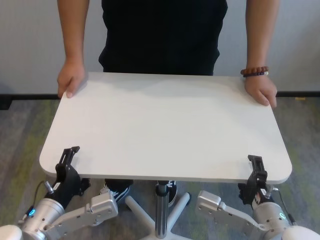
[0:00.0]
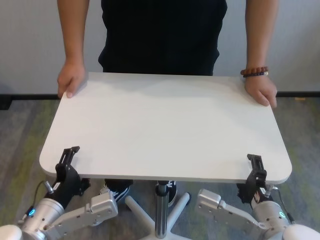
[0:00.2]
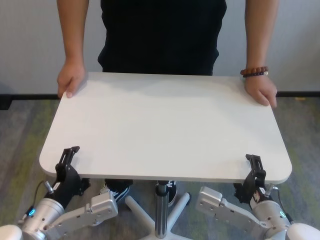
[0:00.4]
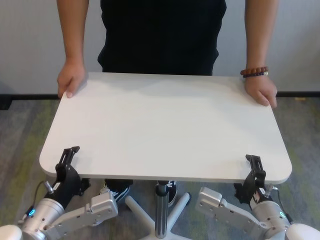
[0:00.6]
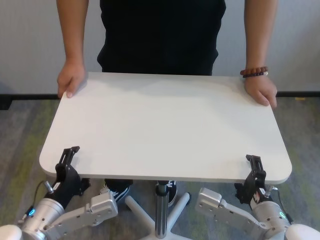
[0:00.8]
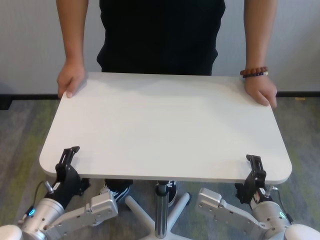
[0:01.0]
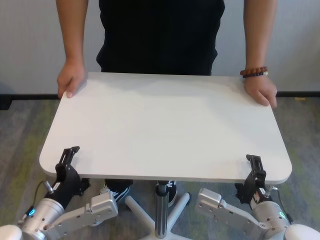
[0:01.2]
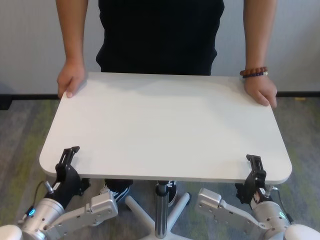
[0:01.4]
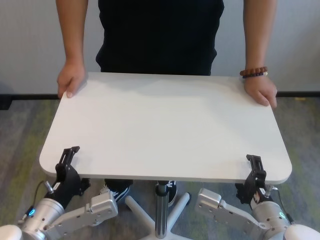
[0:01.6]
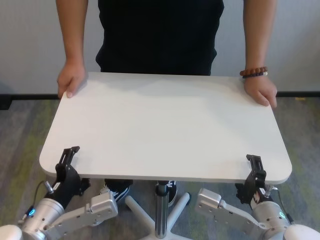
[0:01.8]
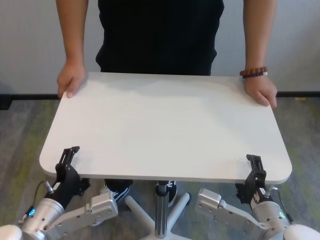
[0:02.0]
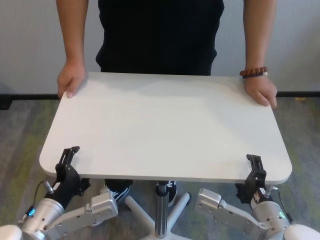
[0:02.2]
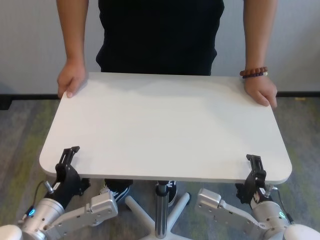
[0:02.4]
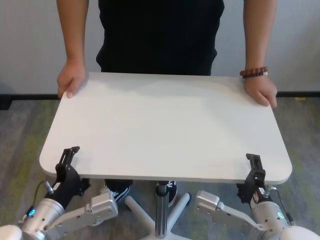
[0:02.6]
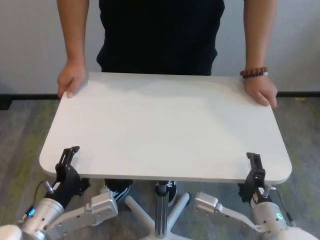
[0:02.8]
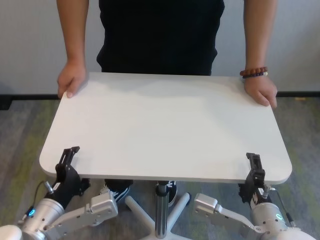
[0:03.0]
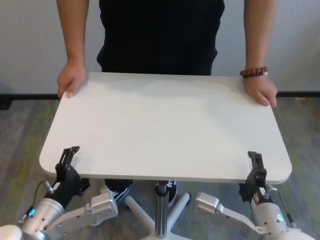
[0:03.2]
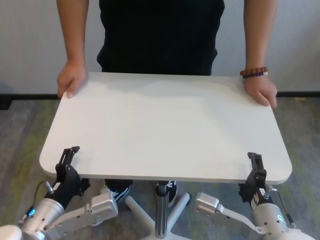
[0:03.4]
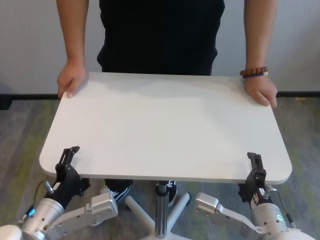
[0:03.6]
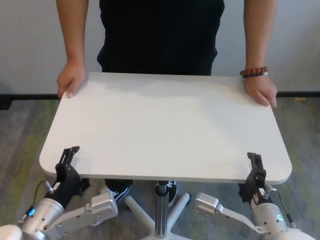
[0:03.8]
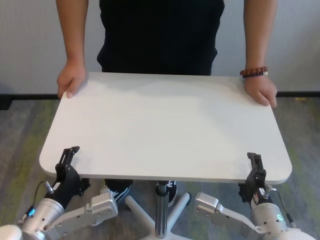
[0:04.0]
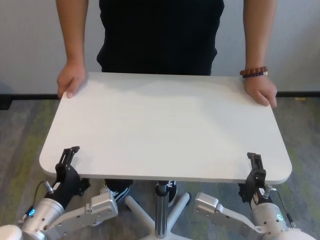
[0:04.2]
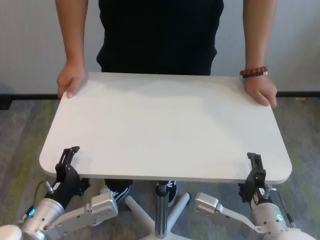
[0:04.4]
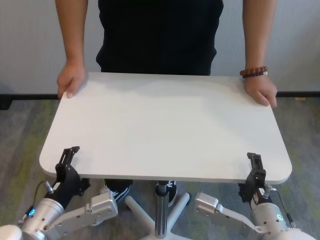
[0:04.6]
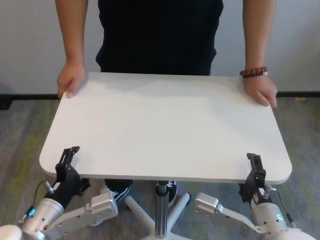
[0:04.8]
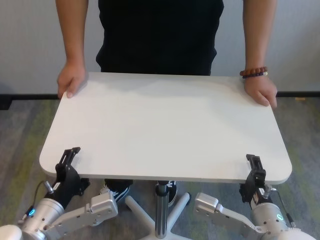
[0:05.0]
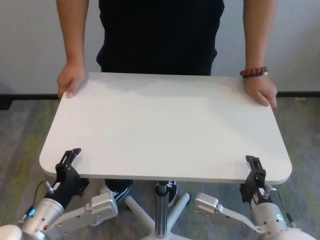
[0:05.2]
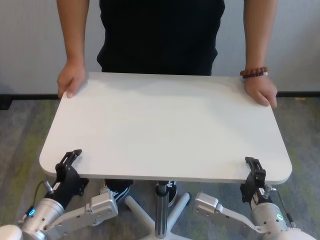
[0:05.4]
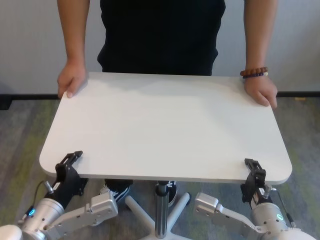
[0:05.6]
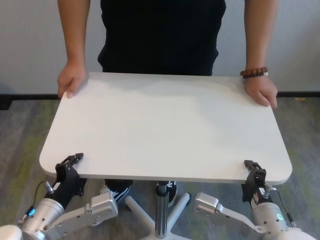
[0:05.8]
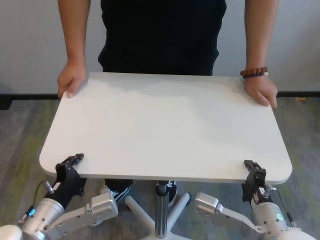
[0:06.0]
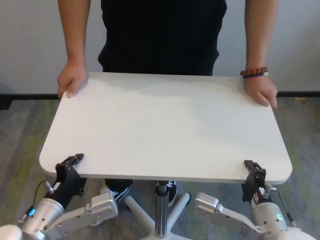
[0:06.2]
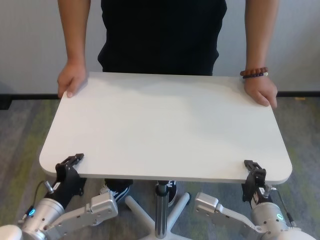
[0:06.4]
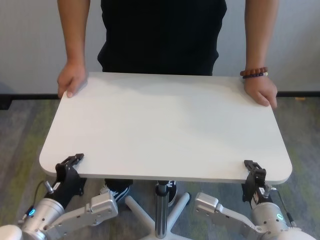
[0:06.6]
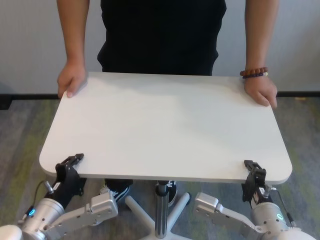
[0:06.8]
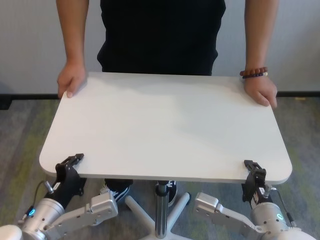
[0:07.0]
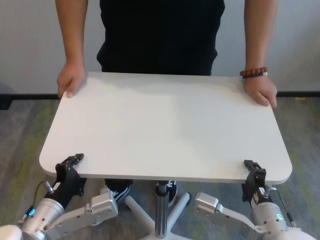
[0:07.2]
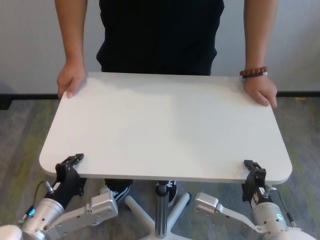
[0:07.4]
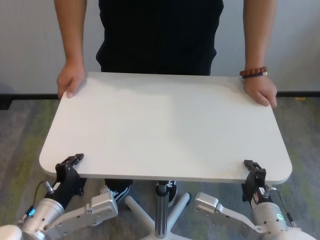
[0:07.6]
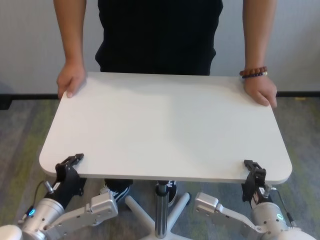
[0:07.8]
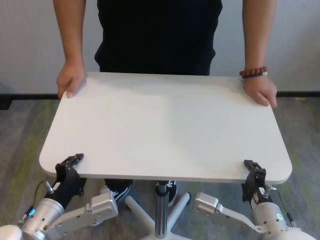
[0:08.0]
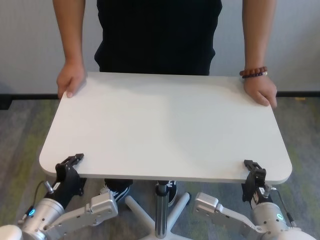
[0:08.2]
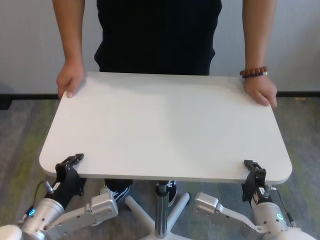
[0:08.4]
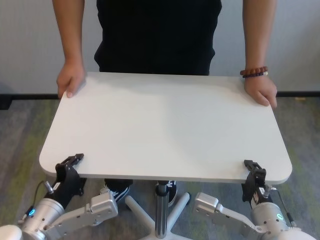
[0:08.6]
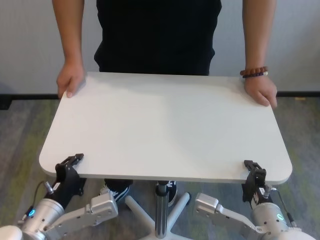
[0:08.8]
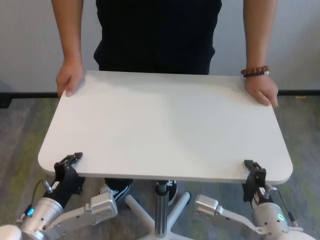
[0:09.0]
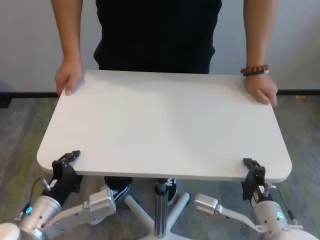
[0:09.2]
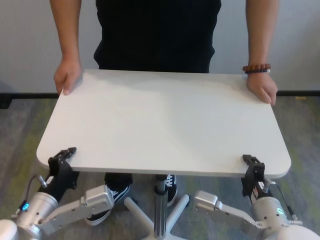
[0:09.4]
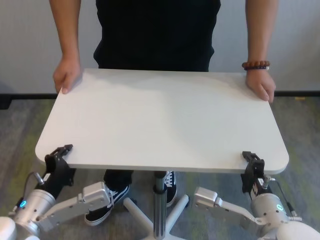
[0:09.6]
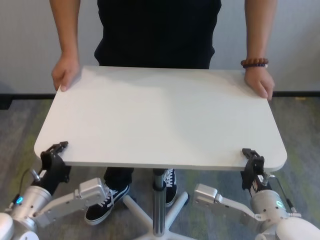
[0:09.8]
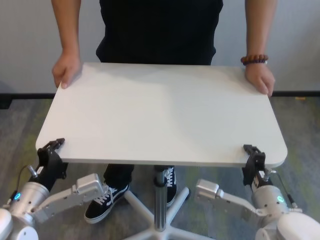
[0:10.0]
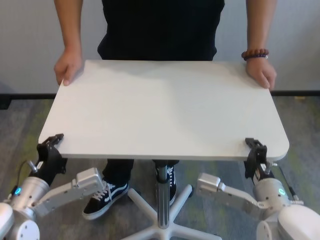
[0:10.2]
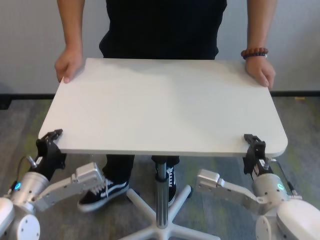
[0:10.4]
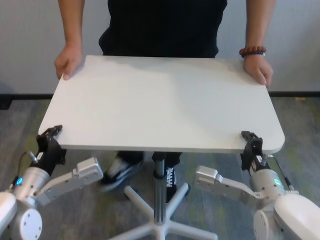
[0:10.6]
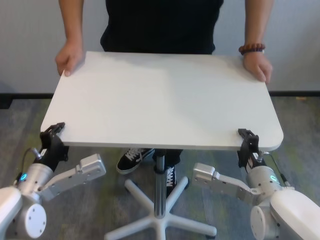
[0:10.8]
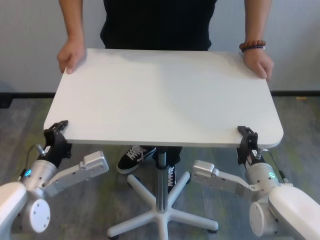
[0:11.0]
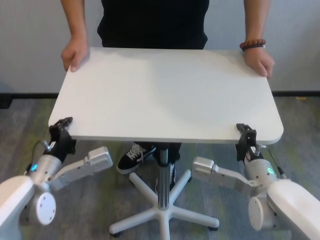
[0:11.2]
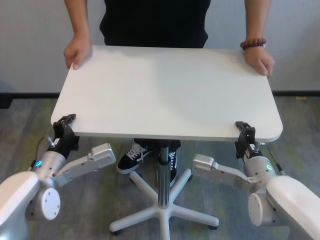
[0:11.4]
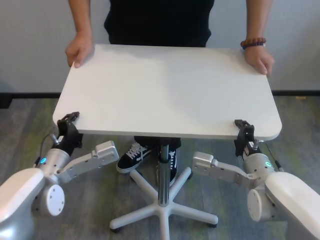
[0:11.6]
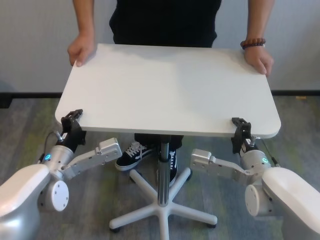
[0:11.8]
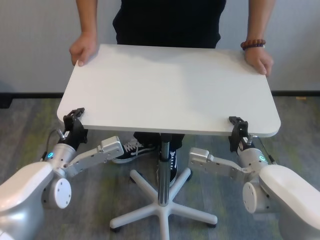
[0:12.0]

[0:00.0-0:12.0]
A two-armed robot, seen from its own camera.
Task of the whole recording: human machine collaborative table moving.
Step, 0:00.0 to 0:08.4: Grasp the table with both grippers.

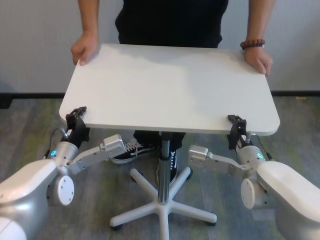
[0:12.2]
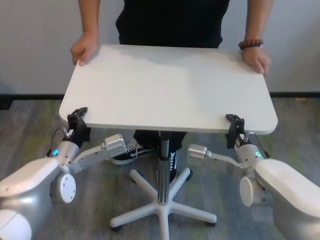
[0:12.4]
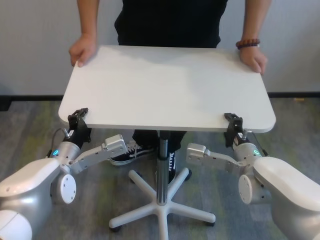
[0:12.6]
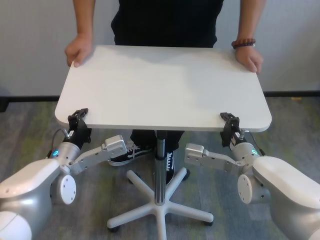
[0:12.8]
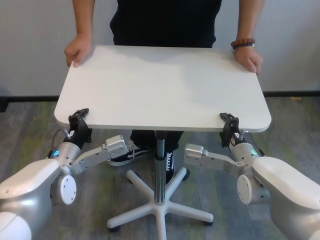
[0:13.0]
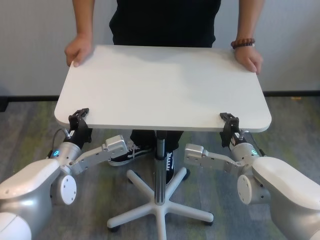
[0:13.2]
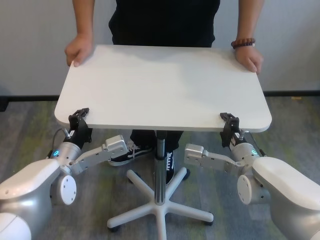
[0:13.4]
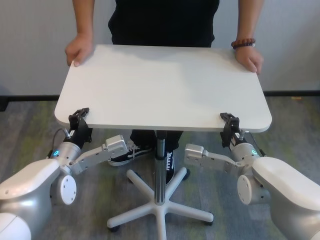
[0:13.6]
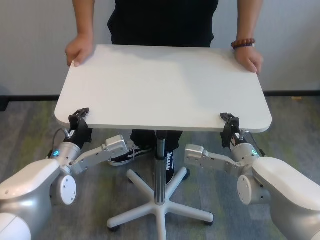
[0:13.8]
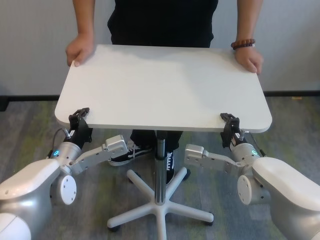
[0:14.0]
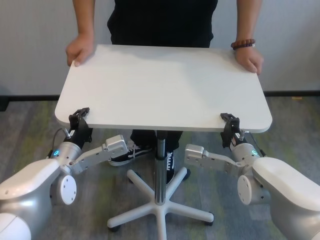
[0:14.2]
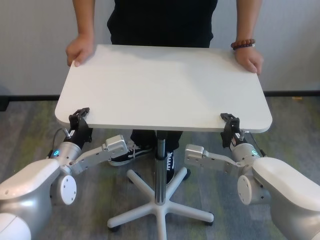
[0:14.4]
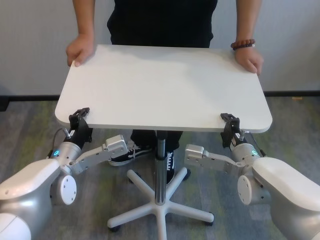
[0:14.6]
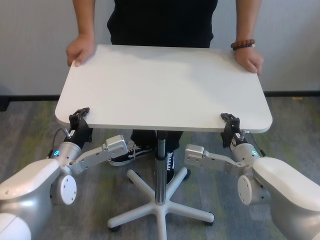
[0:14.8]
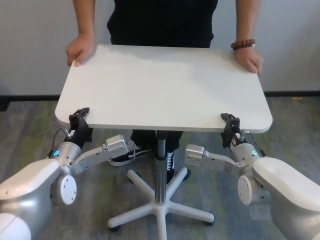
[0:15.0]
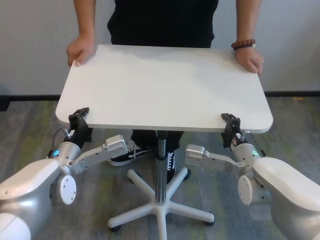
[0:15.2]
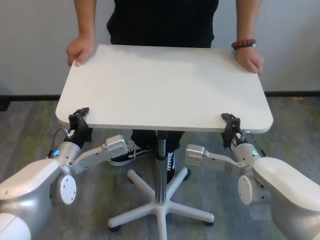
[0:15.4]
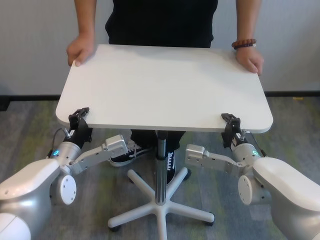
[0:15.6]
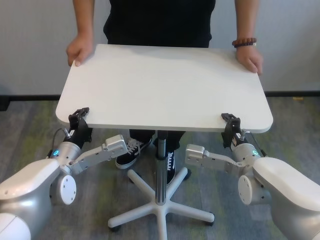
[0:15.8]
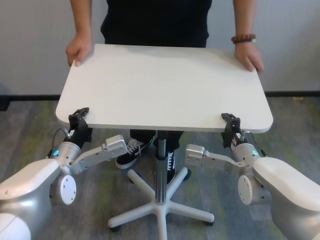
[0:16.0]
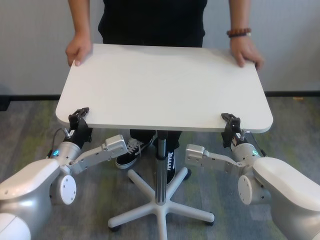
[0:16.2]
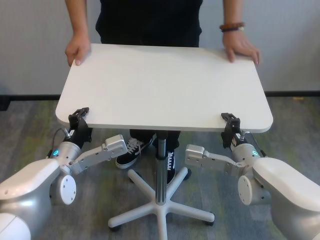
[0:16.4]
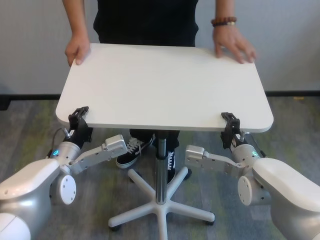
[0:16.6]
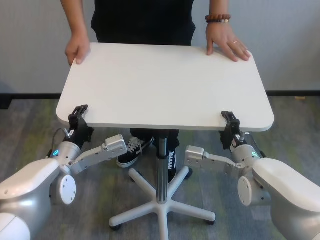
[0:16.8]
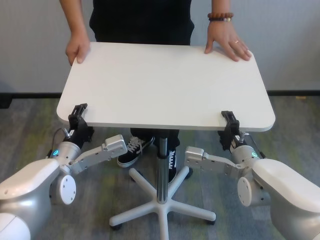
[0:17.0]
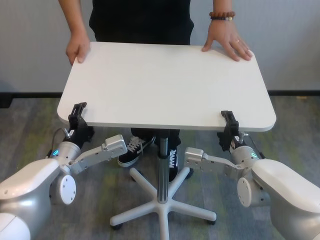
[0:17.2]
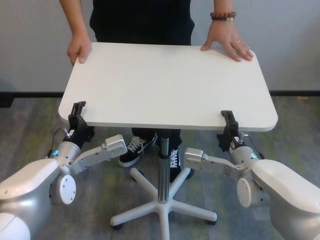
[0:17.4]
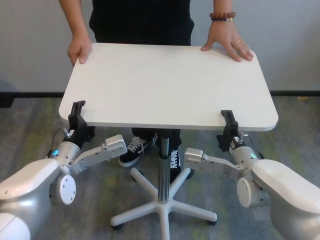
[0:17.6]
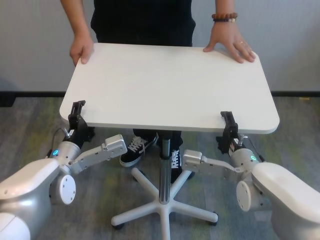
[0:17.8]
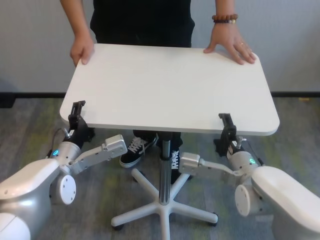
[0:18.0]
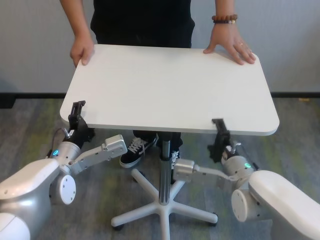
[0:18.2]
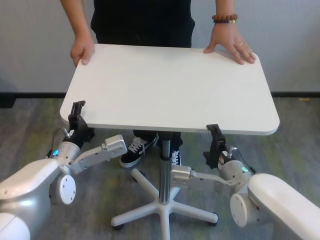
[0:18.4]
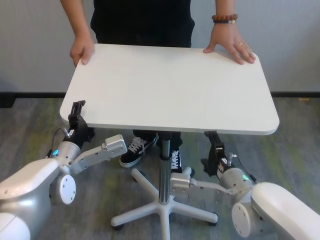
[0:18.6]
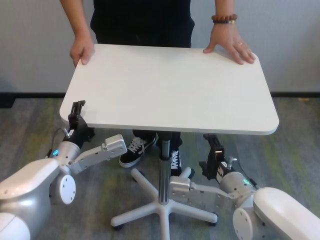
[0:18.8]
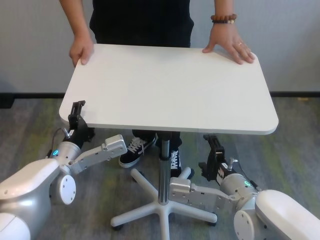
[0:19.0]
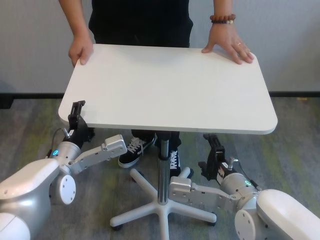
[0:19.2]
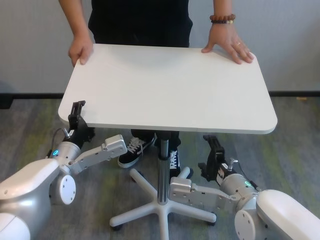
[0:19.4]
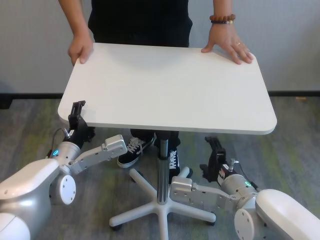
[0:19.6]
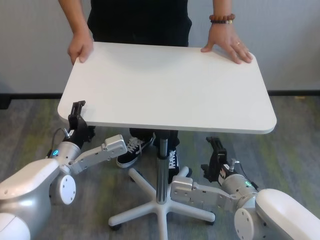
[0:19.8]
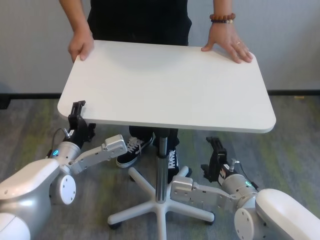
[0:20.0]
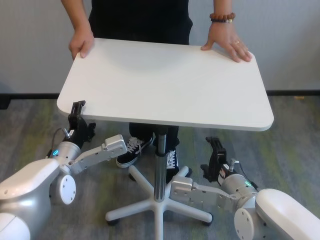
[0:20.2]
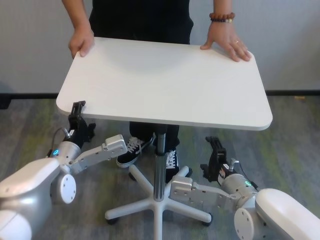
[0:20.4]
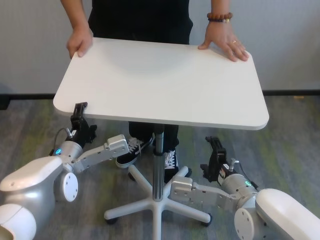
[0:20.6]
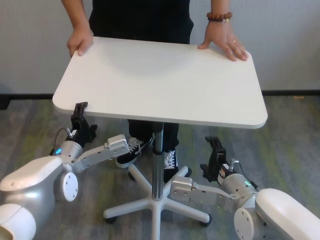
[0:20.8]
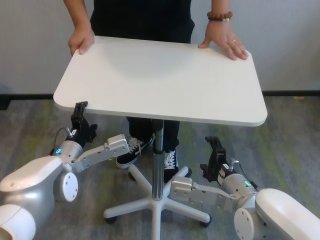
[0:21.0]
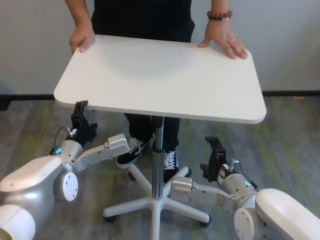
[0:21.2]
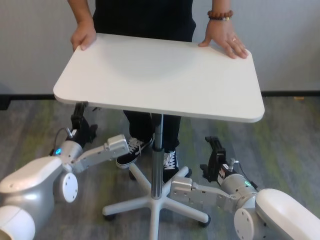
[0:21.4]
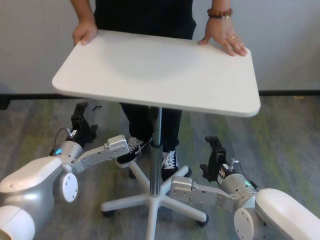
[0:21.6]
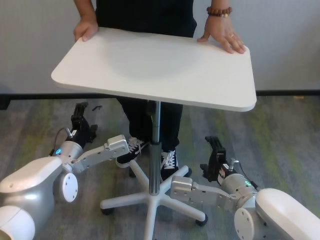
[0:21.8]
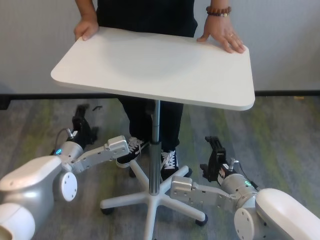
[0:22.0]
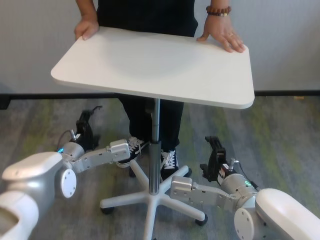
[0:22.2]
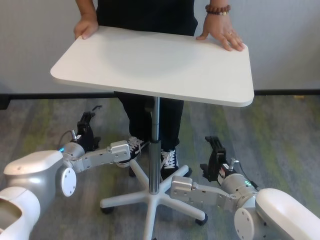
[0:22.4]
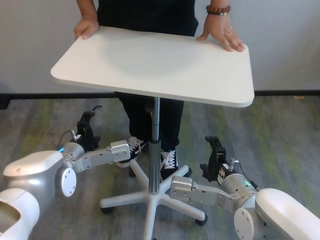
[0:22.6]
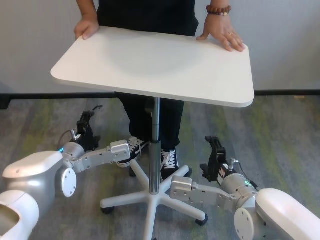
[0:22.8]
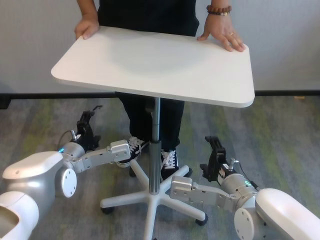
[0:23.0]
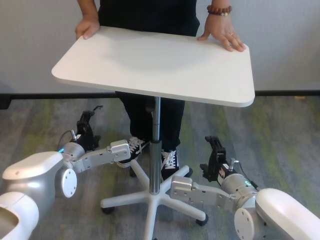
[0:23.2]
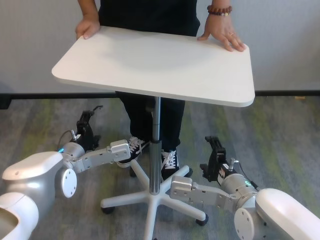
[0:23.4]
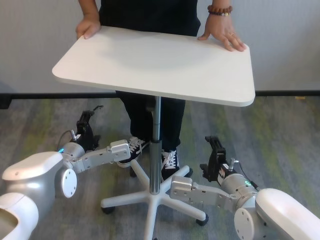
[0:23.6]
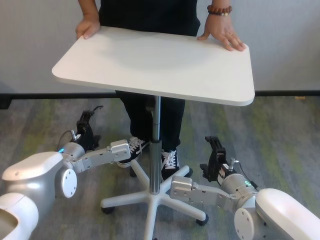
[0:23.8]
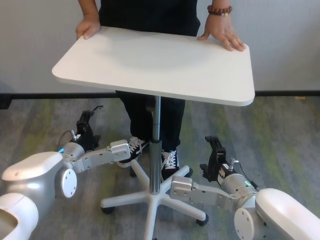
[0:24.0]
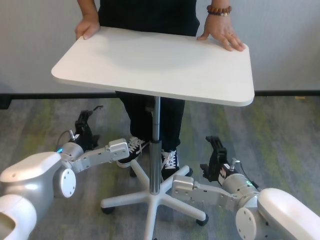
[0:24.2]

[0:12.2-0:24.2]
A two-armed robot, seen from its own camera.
Task of the whole recording: human machine collaborative table moving.
Step, 0:12.2 to 0:17.8: Move the table forward with both grippers.
